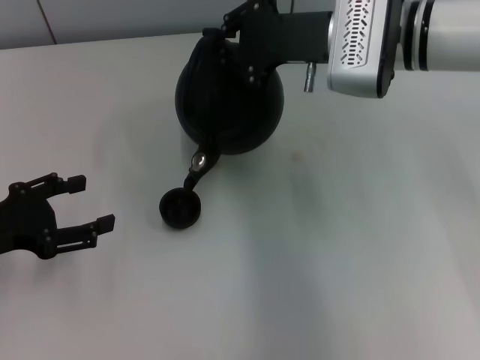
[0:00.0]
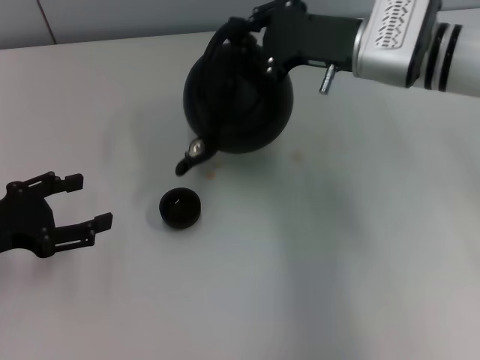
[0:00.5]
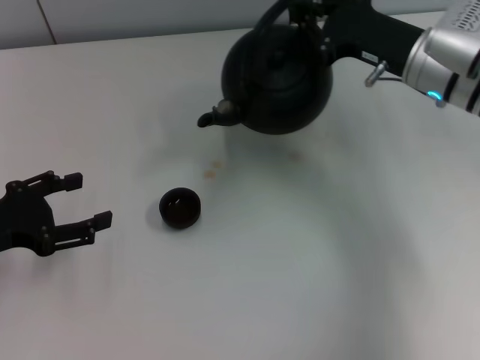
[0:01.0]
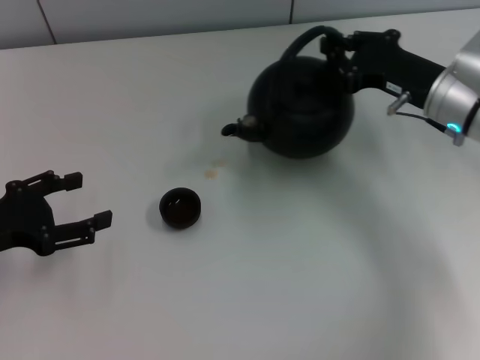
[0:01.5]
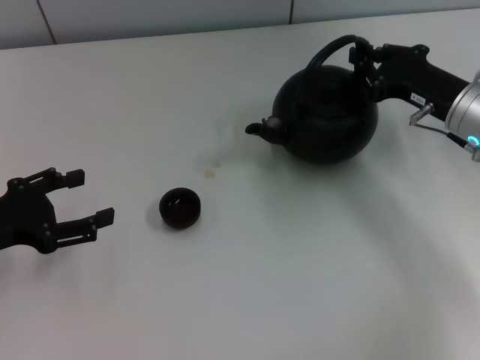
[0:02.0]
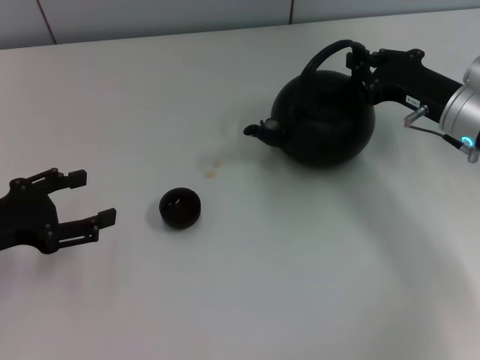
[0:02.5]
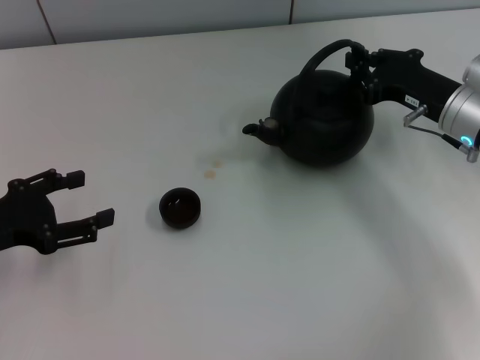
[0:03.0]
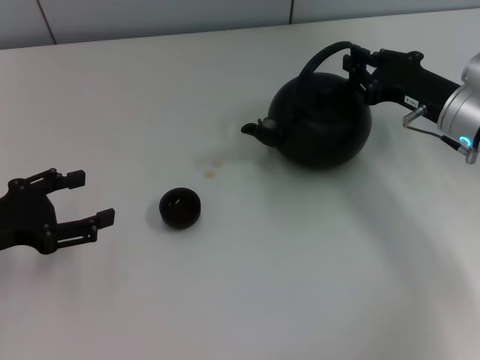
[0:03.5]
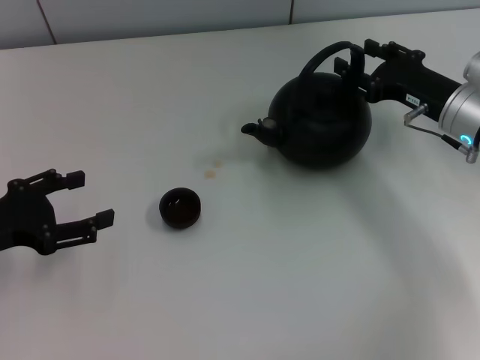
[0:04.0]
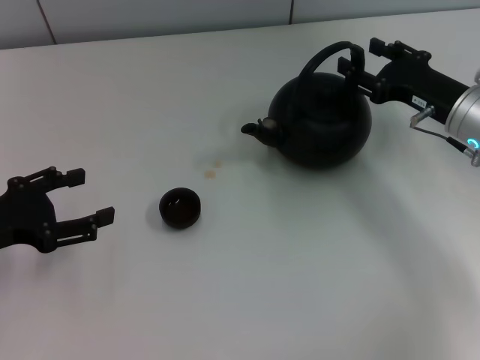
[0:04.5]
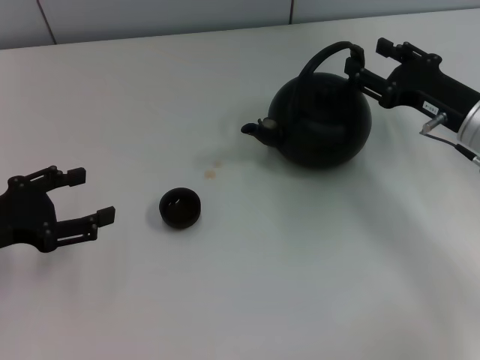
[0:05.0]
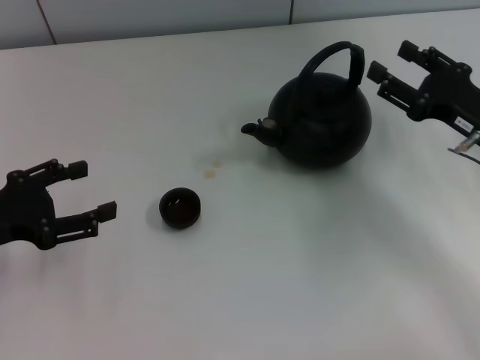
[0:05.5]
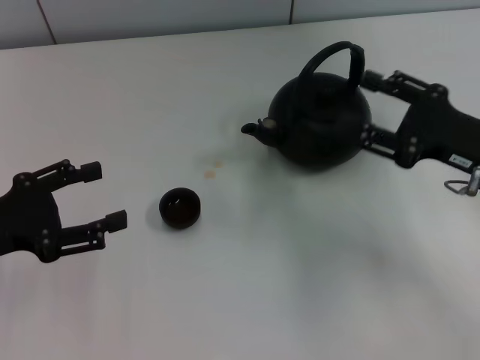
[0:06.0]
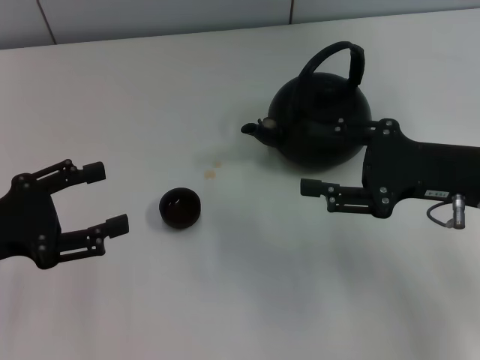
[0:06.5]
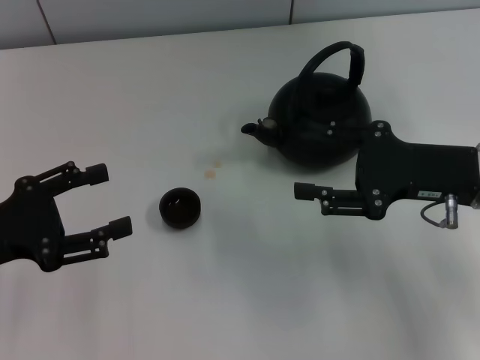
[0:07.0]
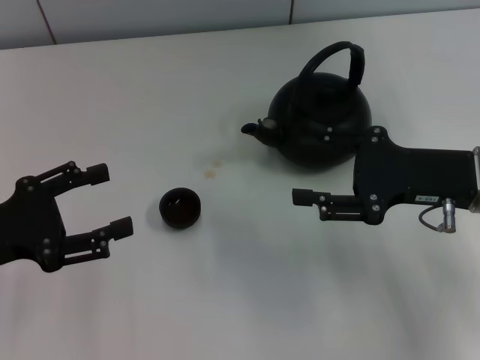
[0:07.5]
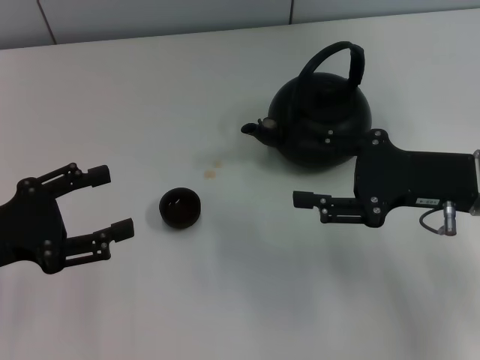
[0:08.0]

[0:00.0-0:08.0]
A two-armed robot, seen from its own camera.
Task of the whole recording: Grasp the handle of the teapot with one hand and pour tea into the teacup.
Step, 0:01.0 to 0:05.5: Put down the teapot with the right gripper.
0:00.0 to 0:02.0: The right gripper is displaced to the right, downward and backward by about 15 cm.
0:02.0 to 0:04.0: The right gripper opens up.
0:04.0 to 0:06.0: The right gripper heads backward, covering about 10 cm.

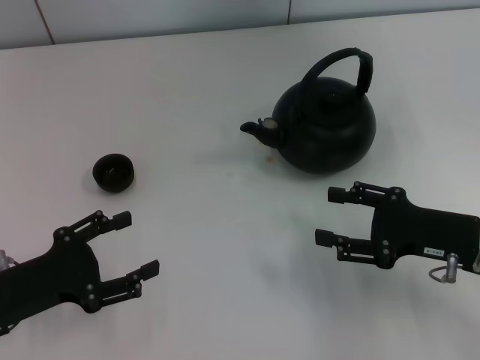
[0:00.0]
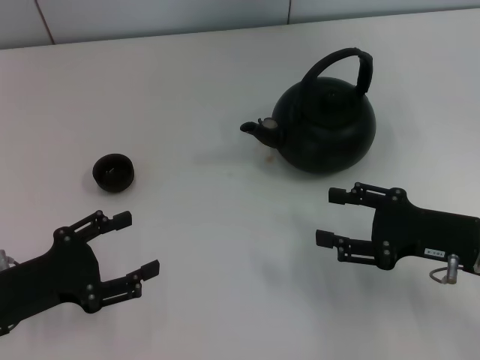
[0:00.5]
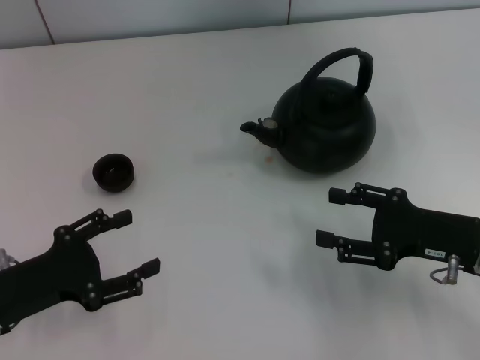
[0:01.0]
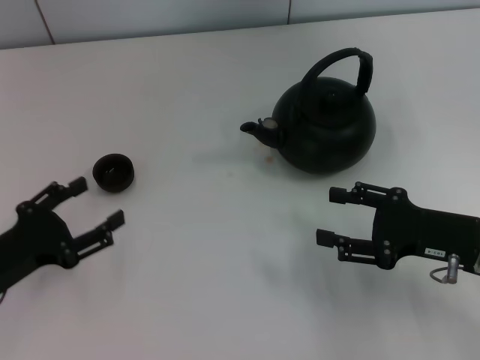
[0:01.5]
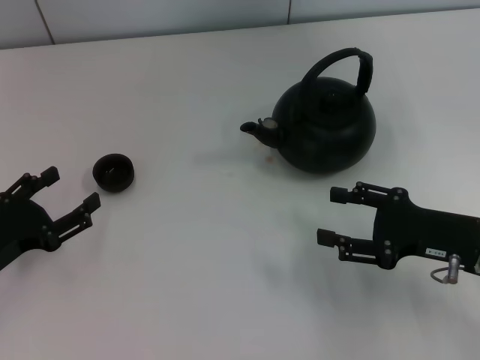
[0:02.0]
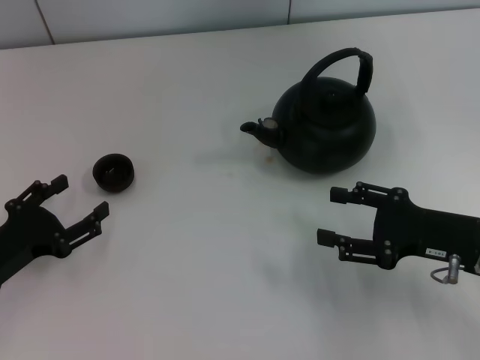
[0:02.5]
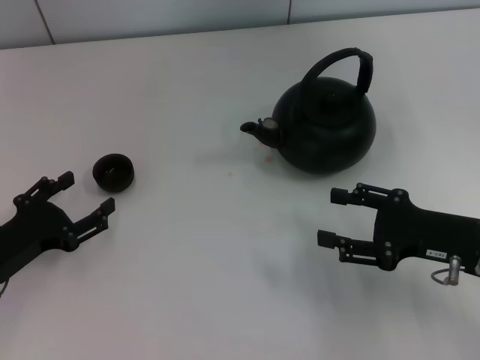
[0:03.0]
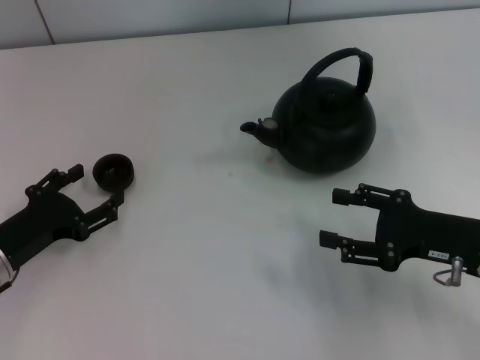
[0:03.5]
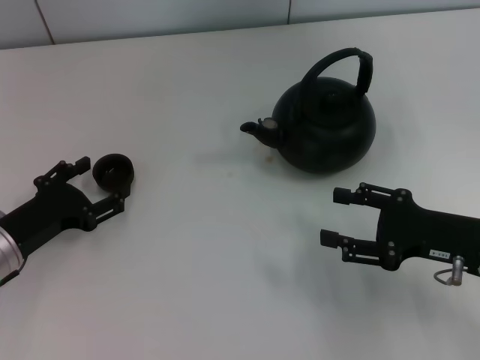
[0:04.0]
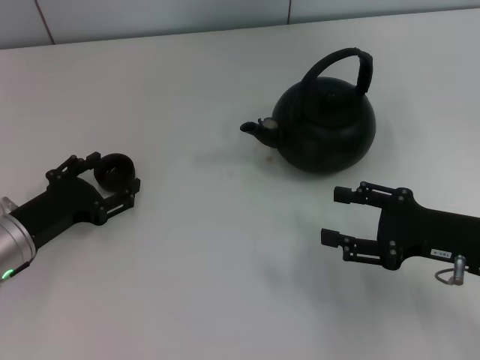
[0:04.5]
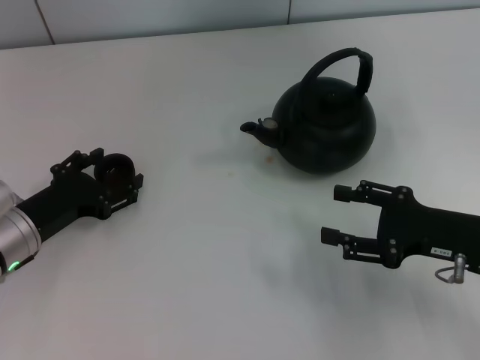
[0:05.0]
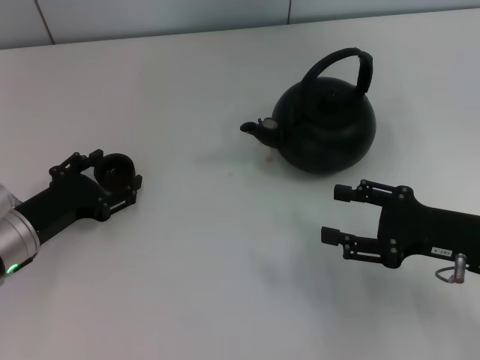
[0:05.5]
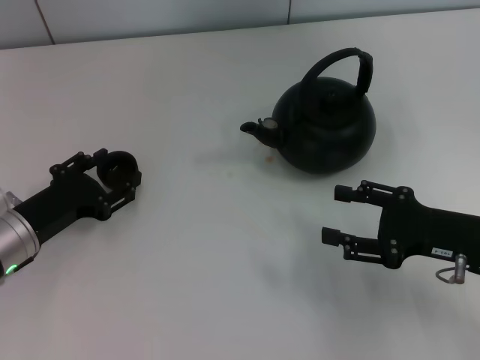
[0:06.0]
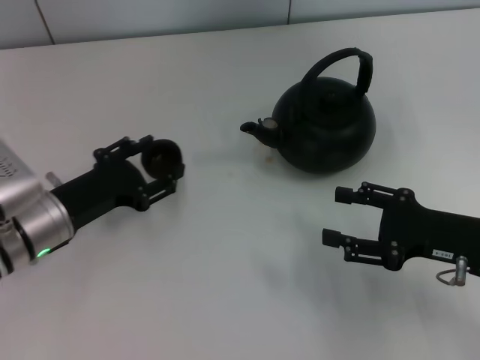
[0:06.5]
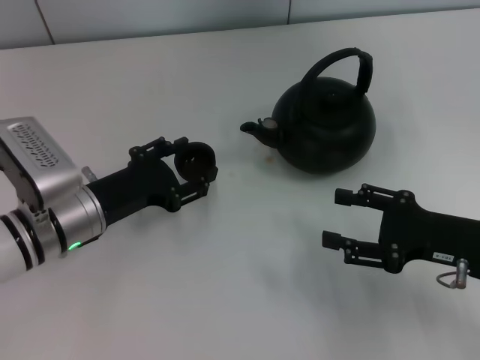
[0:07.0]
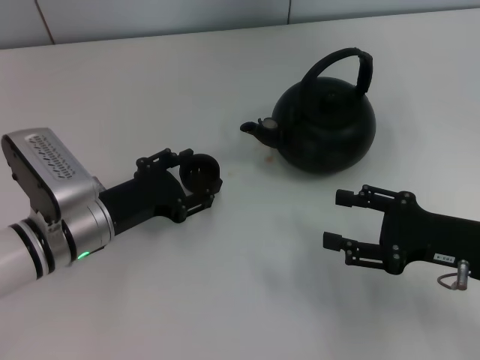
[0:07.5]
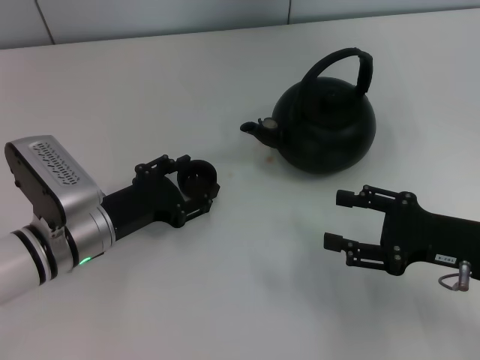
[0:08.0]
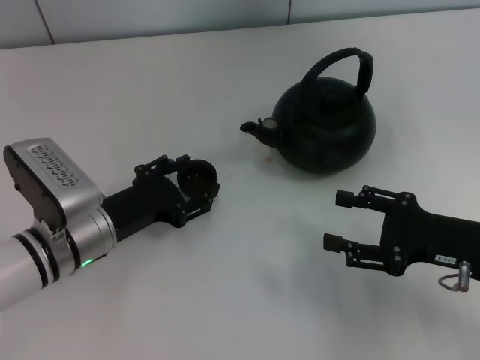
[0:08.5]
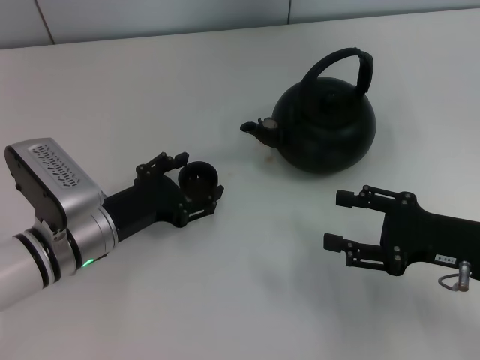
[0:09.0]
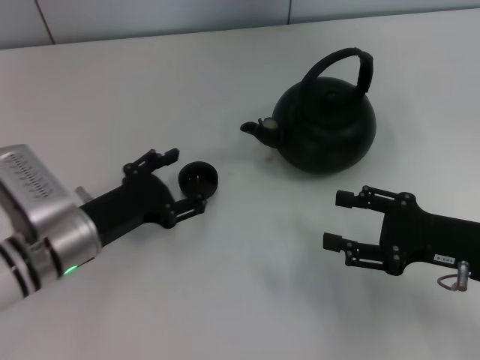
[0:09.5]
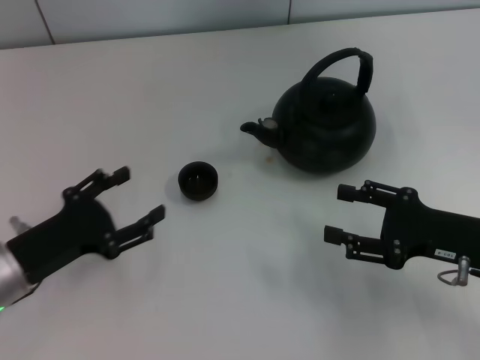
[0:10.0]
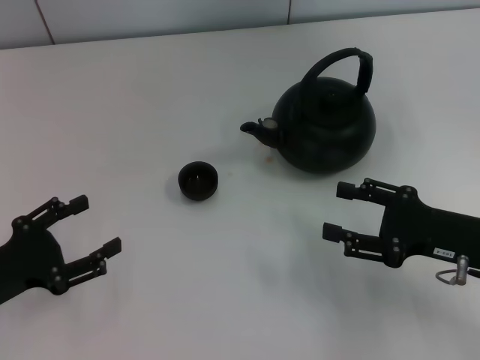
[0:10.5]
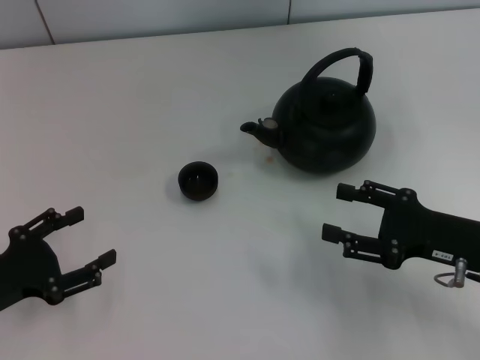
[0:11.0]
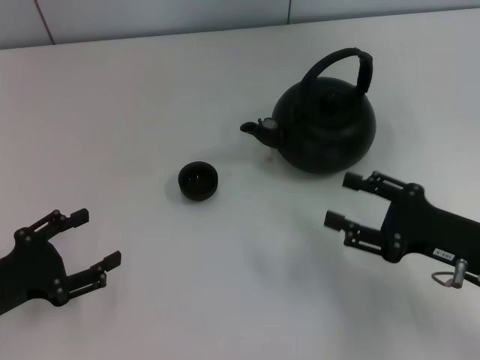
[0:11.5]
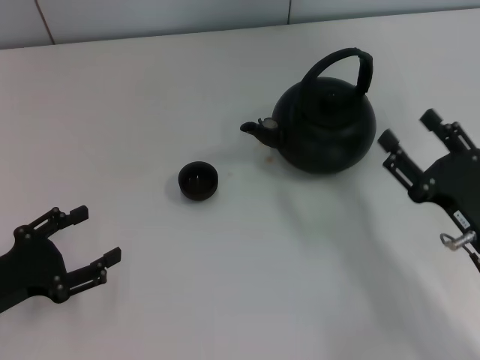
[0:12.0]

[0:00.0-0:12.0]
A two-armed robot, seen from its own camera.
Task of the whole recording: Grasp the handle of the teapot with one hand and pour tea into the teacup.
Step, 0:00.0 to 0:06.0: Pick up the teacup with the left gripper.
Step, 0:06.5 to 0:09.0: Place the teacup in the center of view with the left gripper.
0:02.0 to 0:04.0: The left gripper changes place by approximately 5 cm.
0:04.0 to 0:06.0: The left gripper closes.
0:06.0 to 0:08.0: The left gripper is displaced to the right by about 5 cm, and opens.
0:08.0 to 0:10.0: The left gripper travels to the left by approximately 5 cm, and opens its fingers.
0:10.0 to 0:12.0: The left gripper goes some 5 cm to the left.

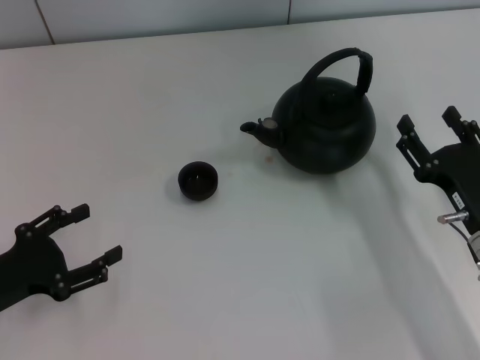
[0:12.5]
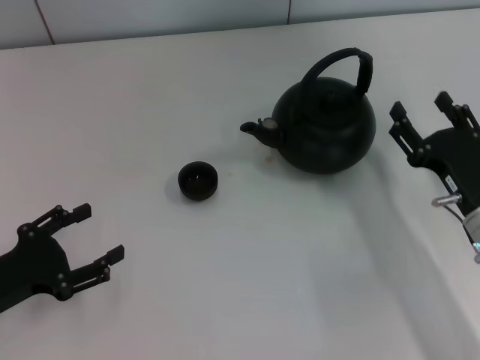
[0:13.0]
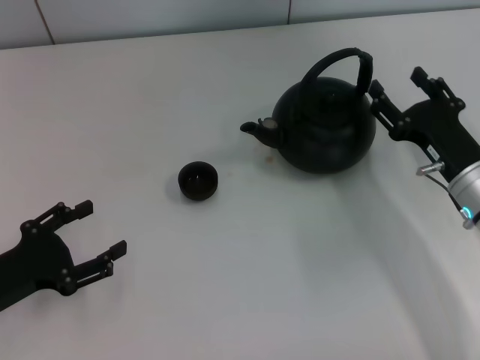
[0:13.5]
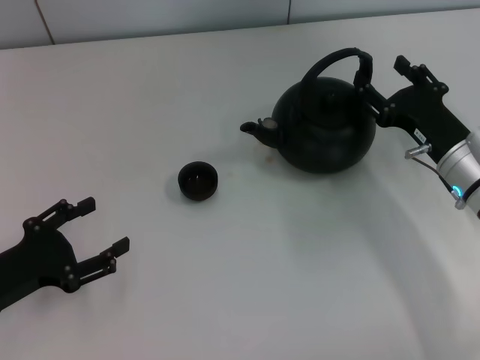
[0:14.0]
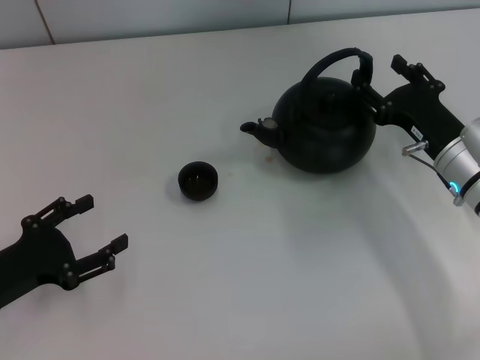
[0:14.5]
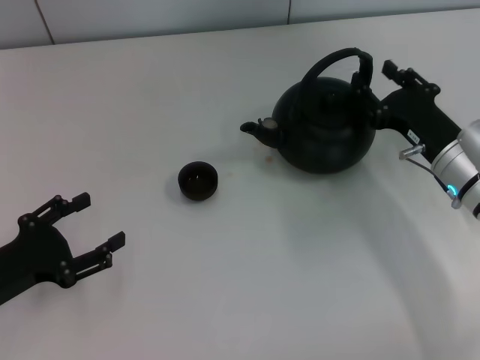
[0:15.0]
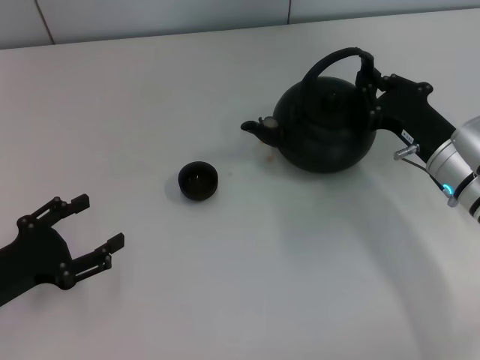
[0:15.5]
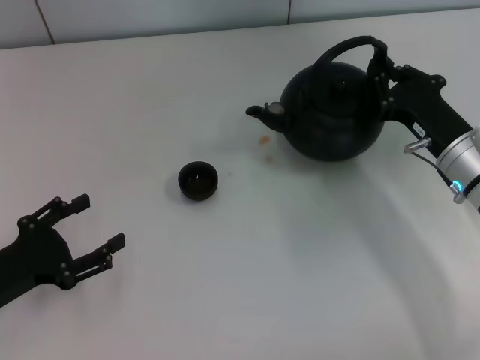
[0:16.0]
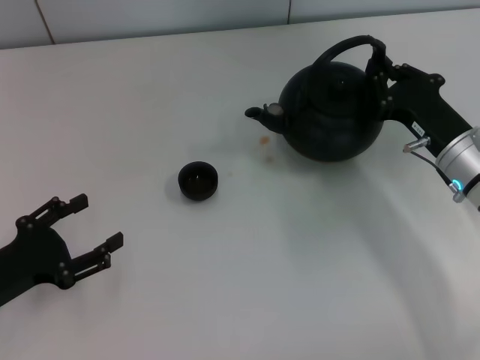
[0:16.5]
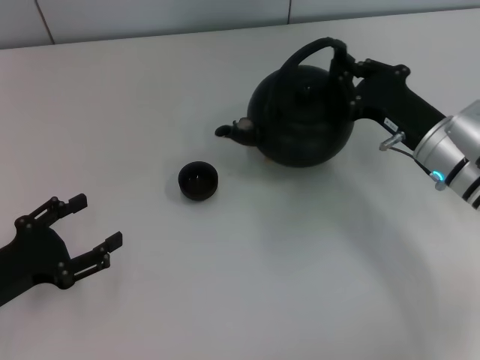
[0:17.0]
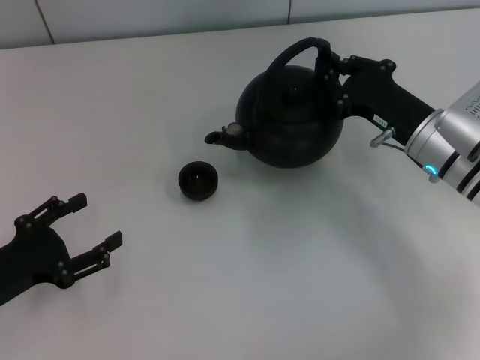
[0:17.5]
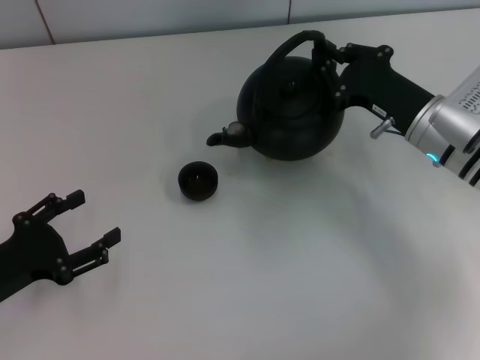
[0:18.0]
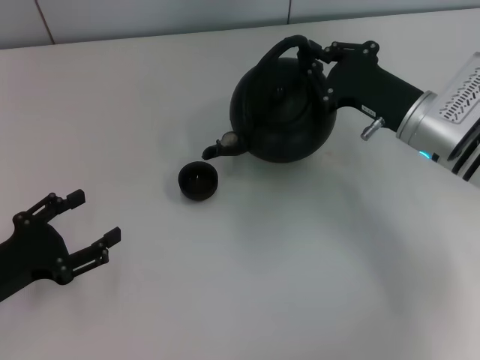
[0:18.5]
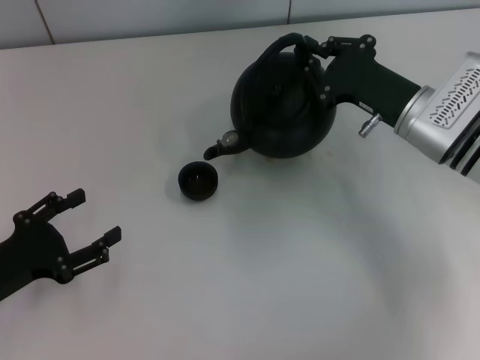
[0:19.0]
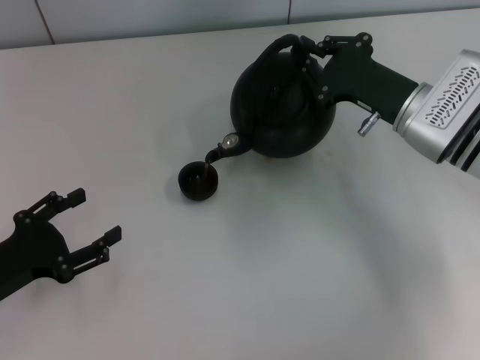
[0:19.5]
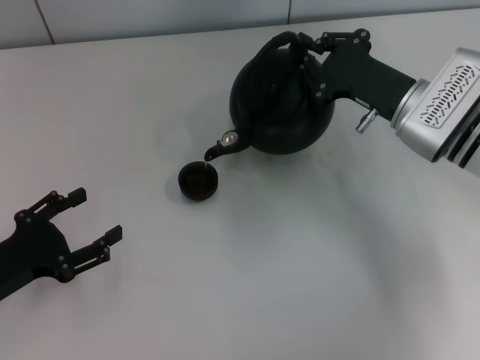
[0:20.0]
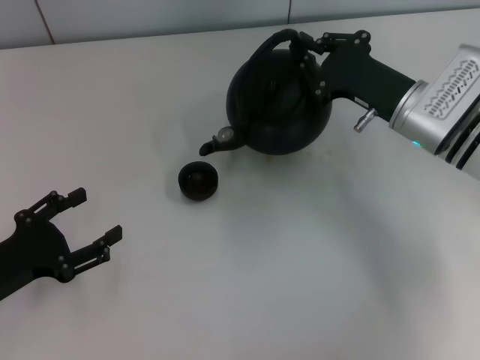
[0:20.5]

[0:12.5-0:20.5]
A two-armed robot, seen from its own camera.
Task of the whole recording: Grasp the handle of the teapot with one hand and pour tea into the teacup.
Step, 0:12.5 to 0:18.0: Pick up the teapot with the right gripper.
0:12.5 to 0:14.5: The right gripper shifts some 10 cm forward.
0:14.5 to 0:16.5: The right gripper closes its fingers.
0:16.5 to 0:18.5: The right gripper shifts by some 5 cm.
0:18.5 to 0:20.5: The grippers move only a little.
